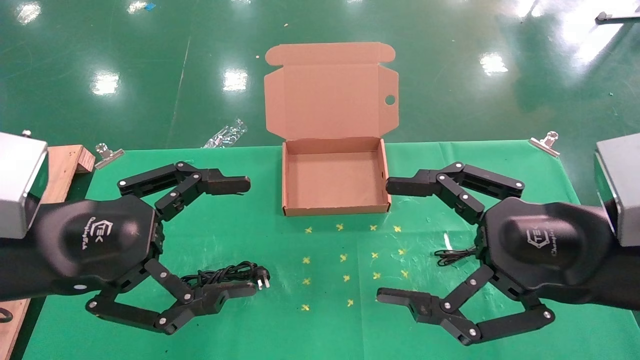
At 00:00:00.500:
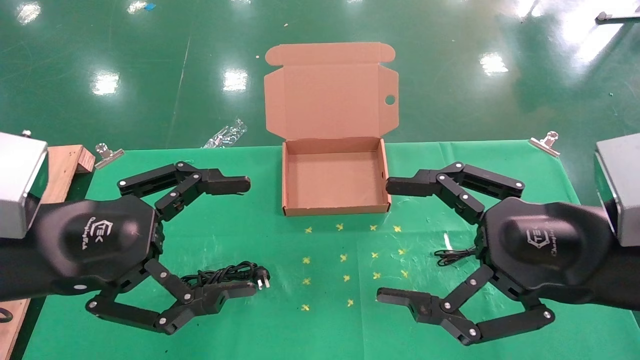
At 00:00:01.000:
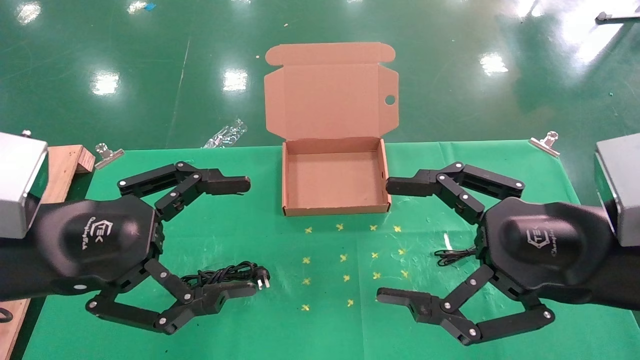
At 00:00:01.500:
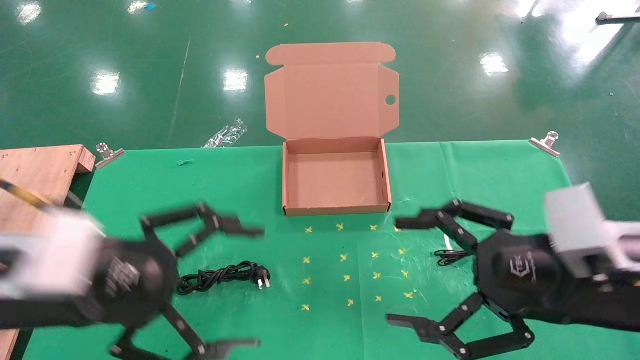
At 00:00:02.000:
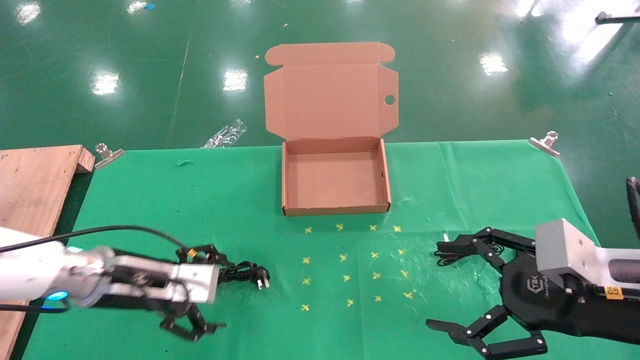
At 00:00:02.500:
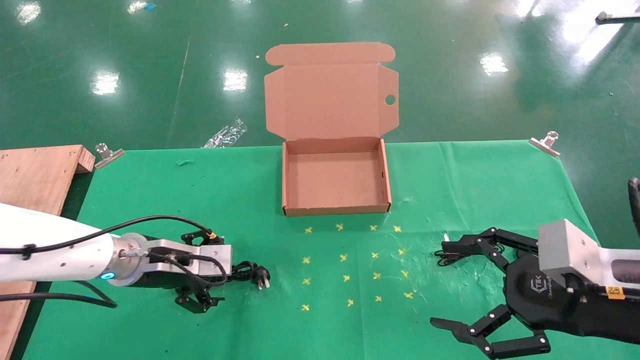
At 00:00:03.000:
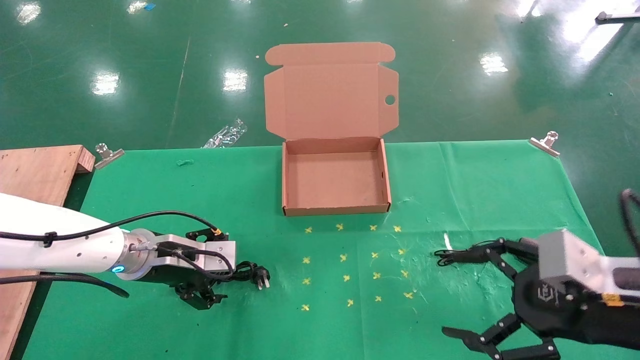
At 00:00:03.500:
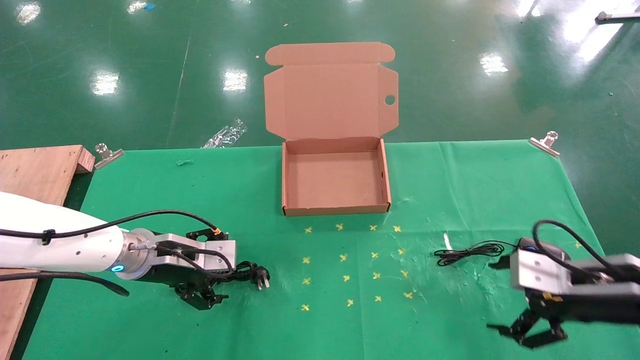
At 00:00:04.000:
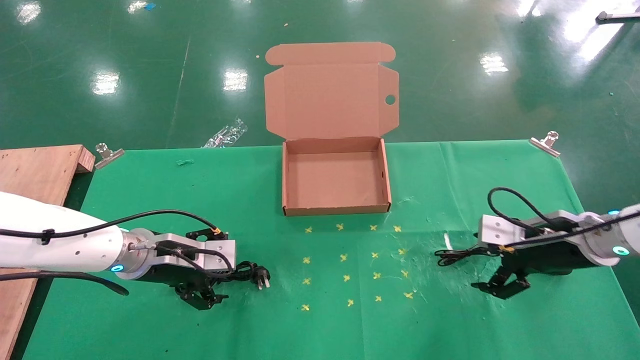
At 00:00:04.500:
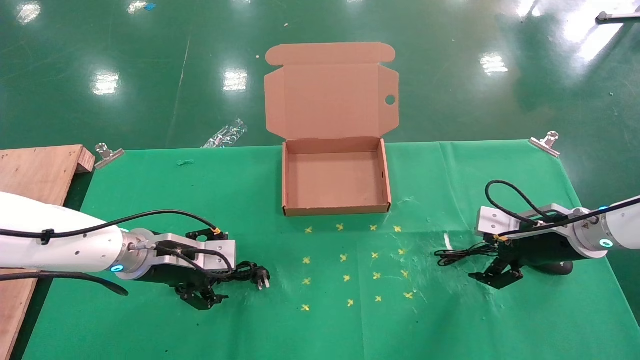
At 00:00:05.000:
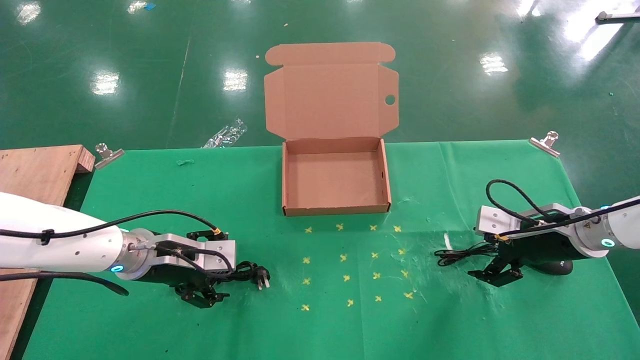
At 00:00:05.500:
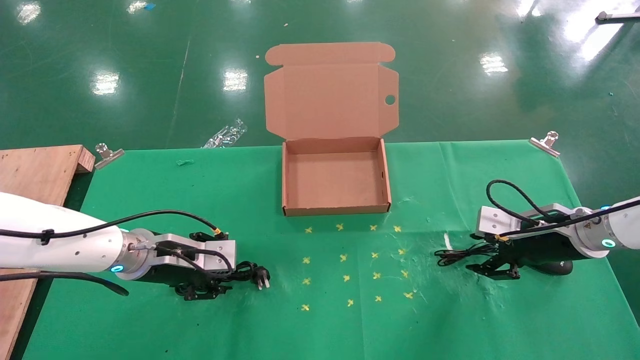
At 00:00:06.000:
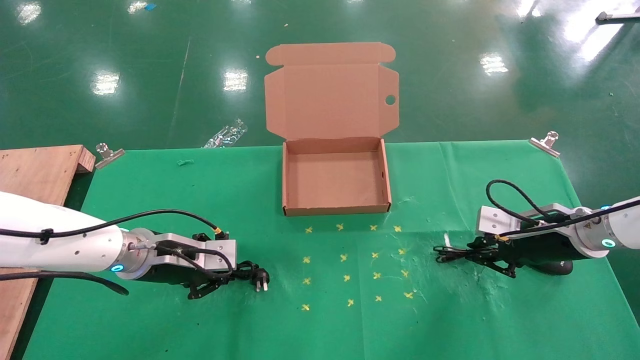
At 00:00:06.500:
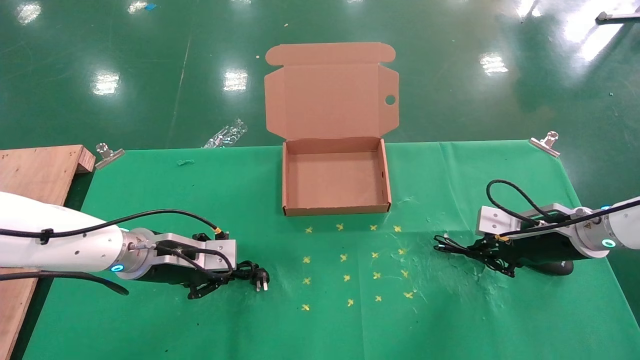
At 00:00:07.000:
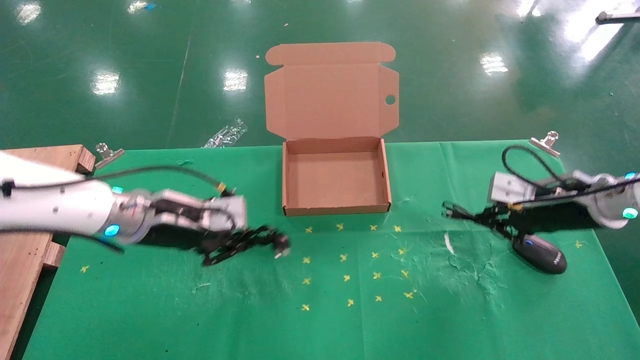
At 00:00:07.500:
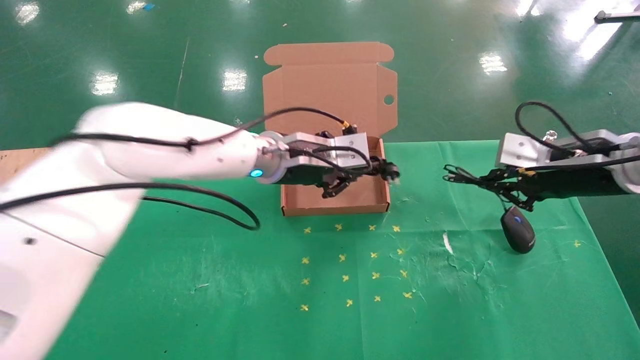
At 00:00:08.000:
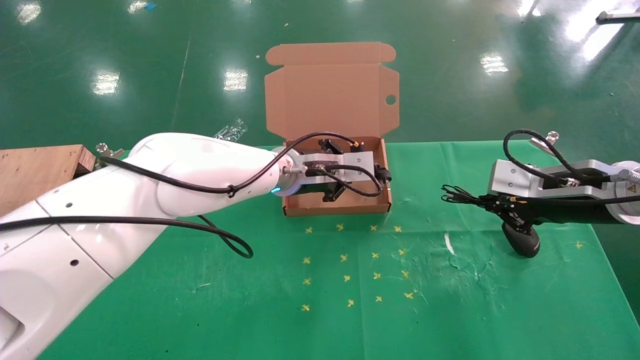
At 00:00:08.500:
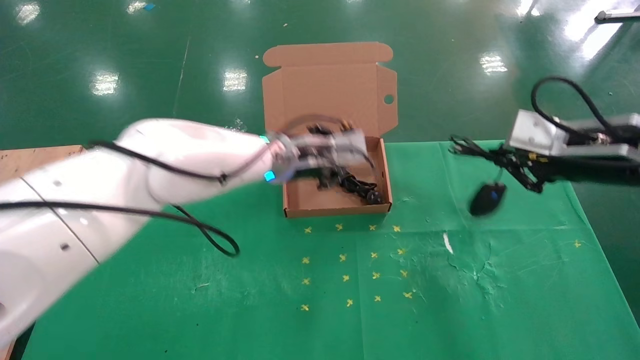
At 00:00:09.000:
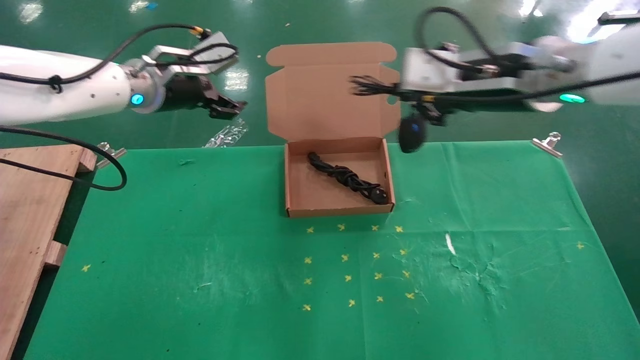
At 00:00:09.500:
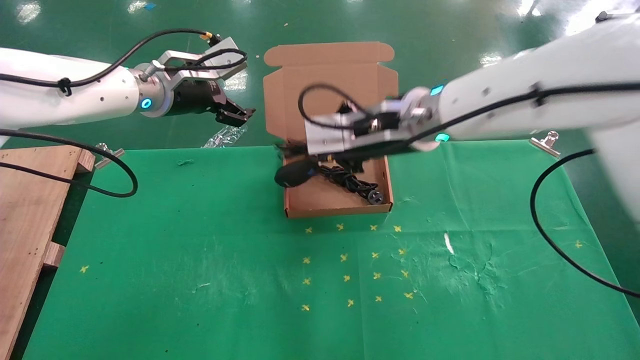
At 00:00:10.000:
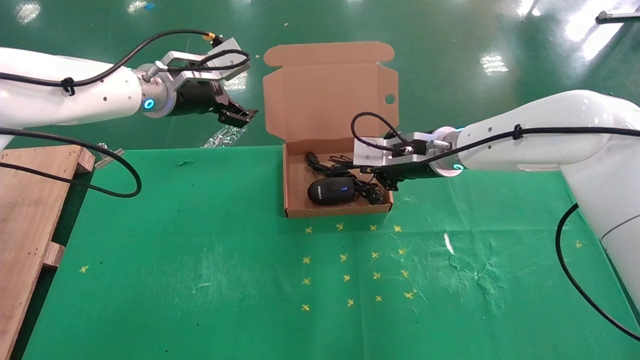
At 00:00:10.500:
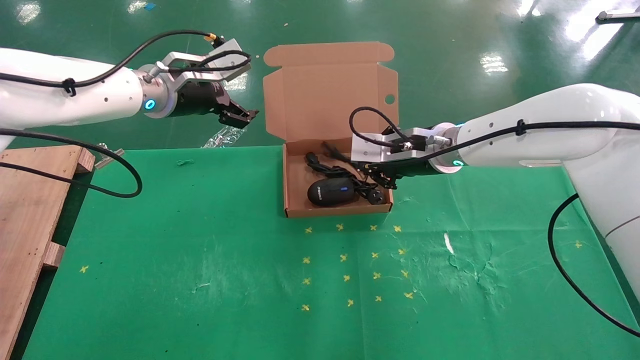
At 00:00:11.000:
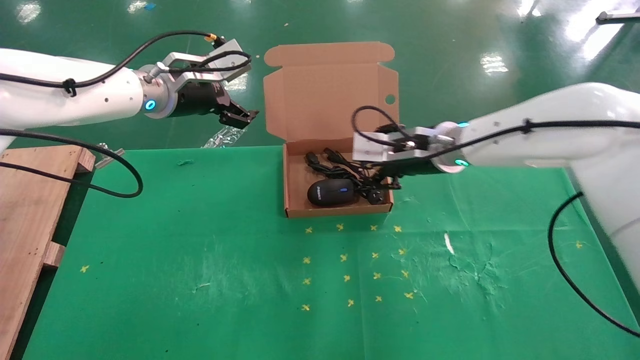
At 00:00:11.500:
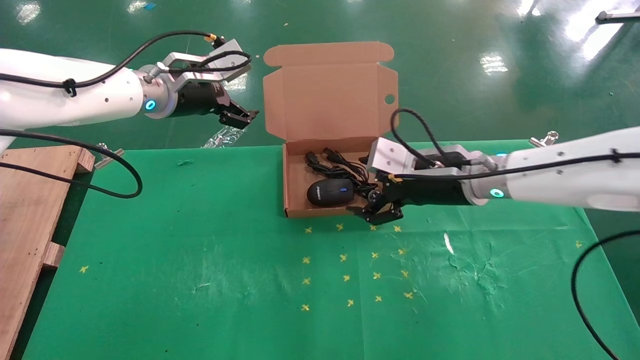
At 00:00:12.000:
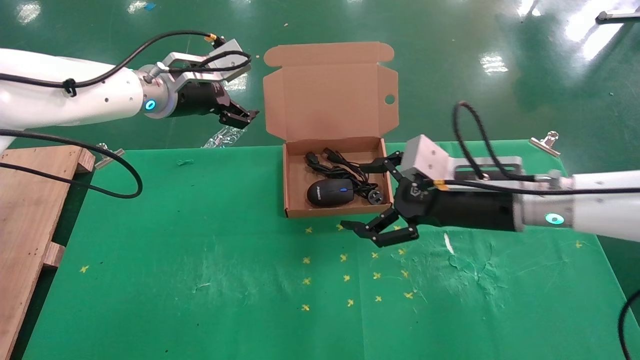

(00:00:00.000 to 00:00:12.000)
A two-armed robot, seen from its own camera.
Task of the whole recording: grasp data cable left put into box grasp mouse right put into box.
Step, 00:00:01.500 - 00:00:06.000: Simultaneously pick up the mouse and power cord from the accessory packaging area.
Step, 00:00:06.500 - 00:00:10.000: Place the mouse and power cord into the box.
00:00:00.000 - 00:00:02.000: The left gripper shifts approximately 15 cm downward and forward. Meanwhile the right gripper goes approximately 10 cm downward and to the right.
00:00:02.000 - 00:00:04.000: The left gripper heads forward, covering about 5 cm, while the right gripper shifts roughly 15 cm forward.
00:00:04.000 - 00:00:06.000: The right gripper closes up.
00:00:06.000 - 00:00:08.000: The right gripper heads upward and backward, covering roughly 10 cm. The left gripper travels to the right and upward by about 25 cm.
00:00:08.000 - 00:00:10.000: The left gripper moves to the left and upward, approximately 20 cm, and opens up. The right gripper is displaced to the left and forward by about 20 cm.
00:00:10.000 - 00:00:12.000: The right gripper moves backward and to the right, some 15 cm, and opens its fingers.

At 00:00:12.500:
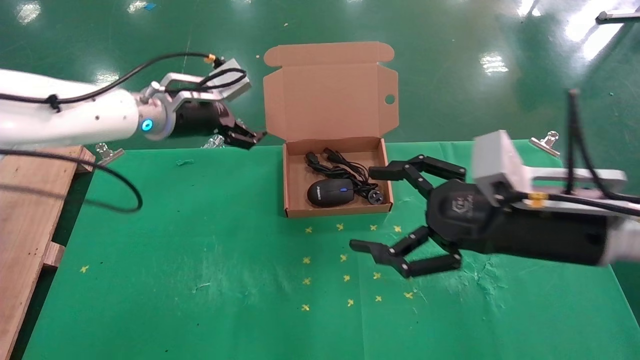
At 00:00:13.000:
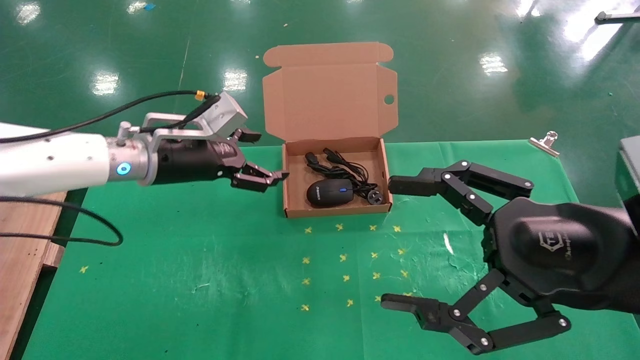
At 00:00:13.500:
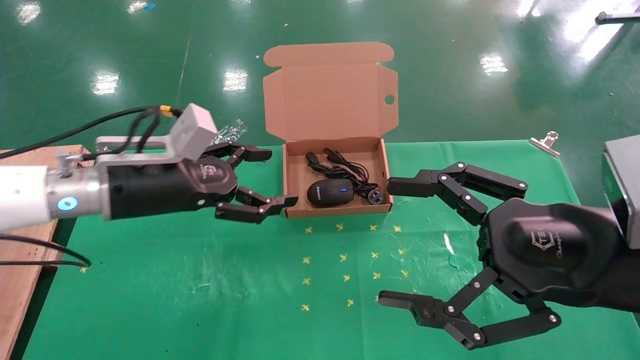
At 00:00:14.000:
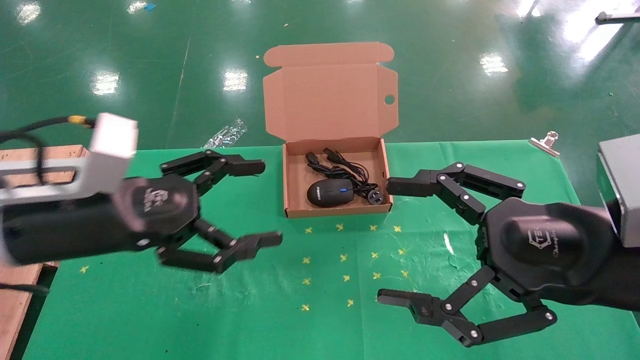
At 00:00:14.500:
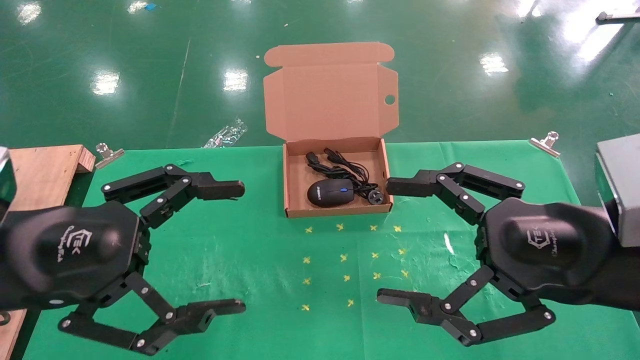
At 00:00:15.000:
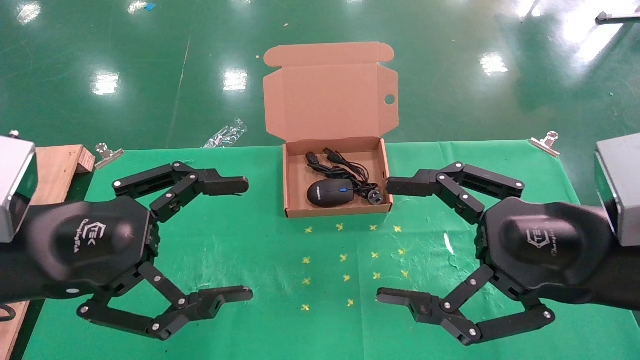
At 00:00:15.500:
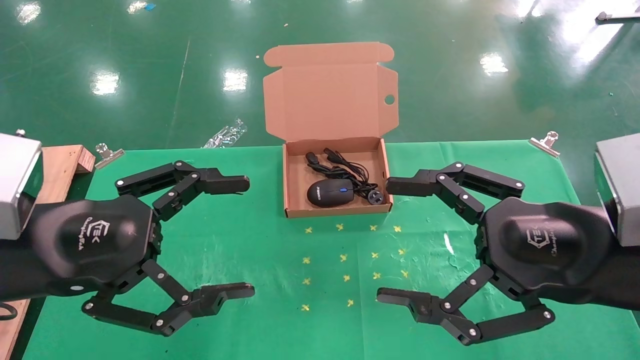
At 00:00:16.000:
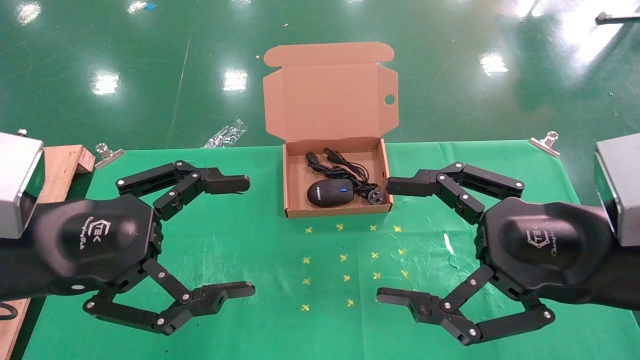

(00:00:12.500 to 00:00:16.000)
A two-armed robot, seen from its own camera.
Task of the whole recording: grasp data cable left put into box grasp mouse right put into box.
00:00:12.500 - 00:00:14.500: The left gripper goes about 25 cm backward. The right gripper heads backward, covering about 5 cm.
00:00:14.500 - 00:00:16.000: Both grippers stay about where they are.
